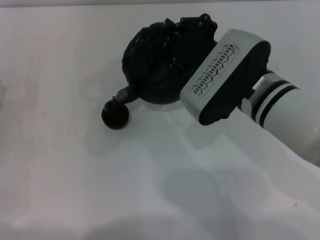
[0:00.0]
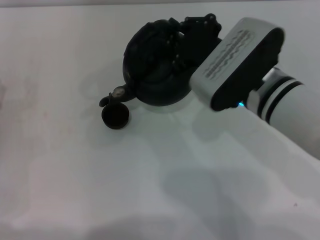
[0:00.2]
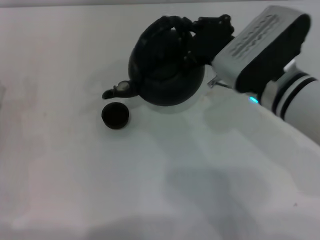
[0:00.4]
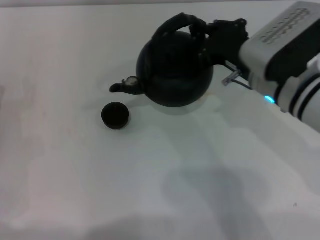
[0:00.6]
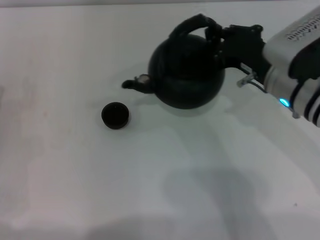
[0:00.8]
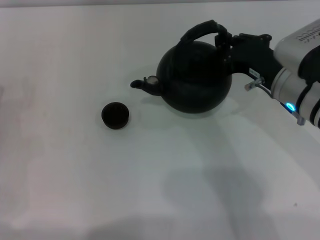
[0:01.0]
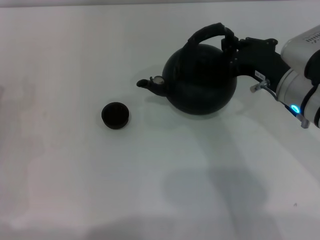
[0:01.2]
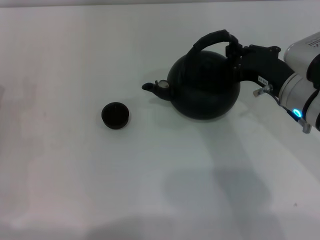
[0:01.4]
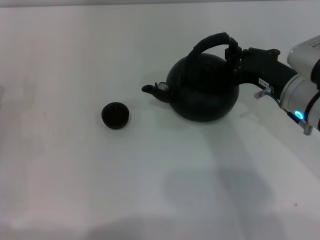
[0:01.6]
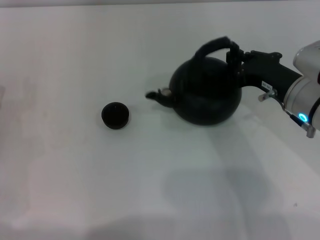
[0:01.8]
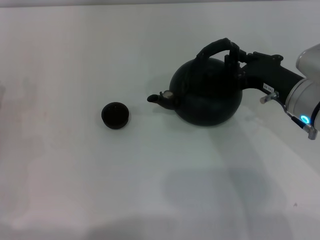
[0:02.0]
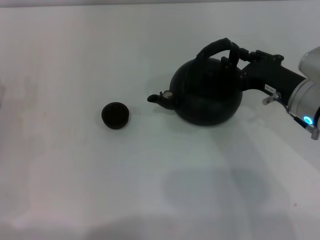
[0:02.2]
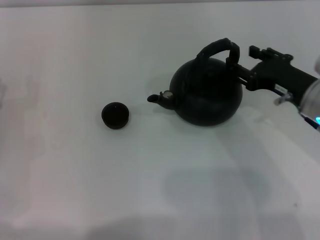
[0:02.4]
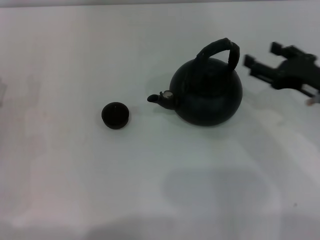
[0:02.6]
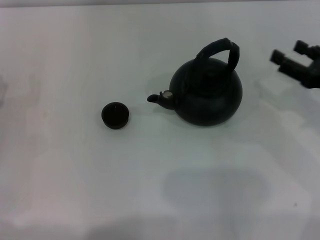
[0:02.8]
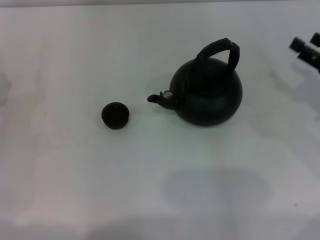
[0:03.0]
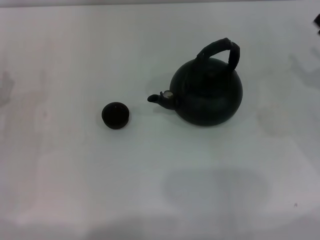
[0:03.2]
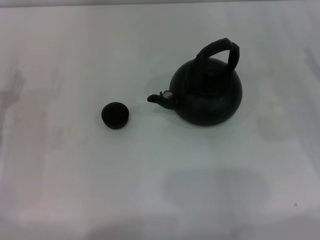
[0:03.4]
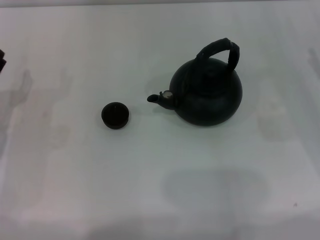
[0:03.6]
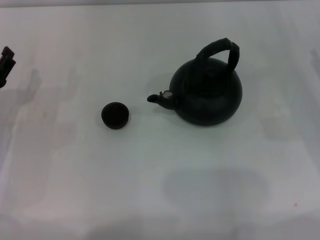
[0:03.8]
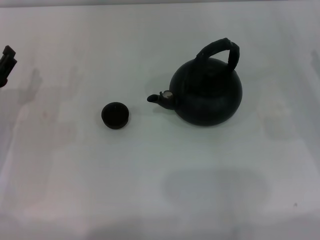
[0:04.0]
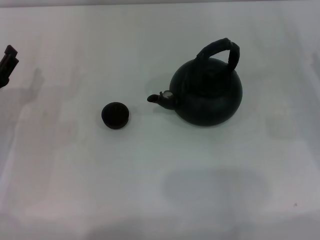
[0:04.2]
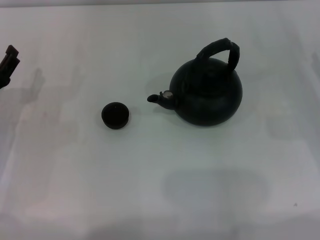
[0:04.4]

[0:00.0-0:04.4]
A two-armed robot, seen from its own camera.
Task of the whole recording: Grasp the handle of the teapot with one hand and pour tea into the teacup.
Step, 0:00.4 to 0:02.2: Put down the teapot with the right gripper.
0:00.0 to 0:01.4: The right gripper shifts roughly 10 cm to the right.
0:01.4 to 0:03.0: The right gripper moves to the right, about 15 cm, and opens.
